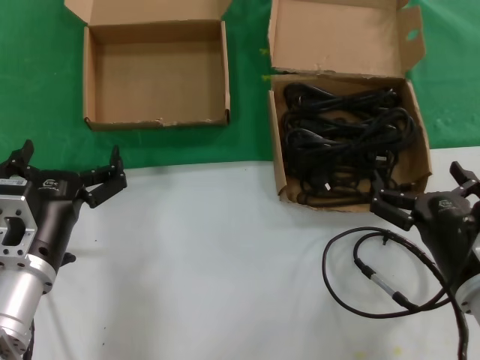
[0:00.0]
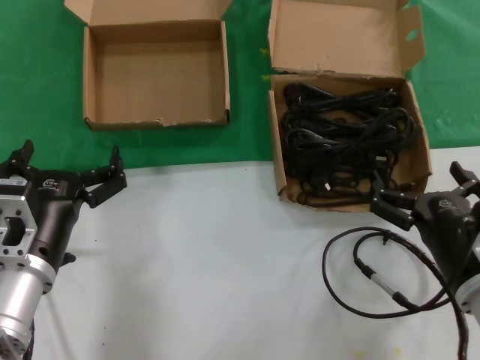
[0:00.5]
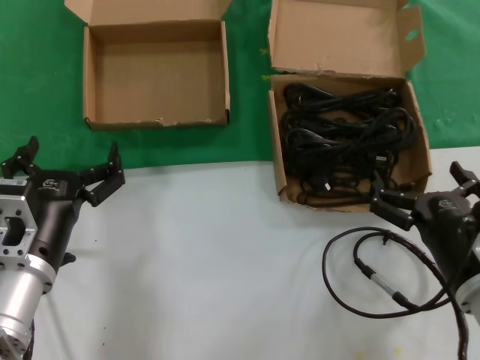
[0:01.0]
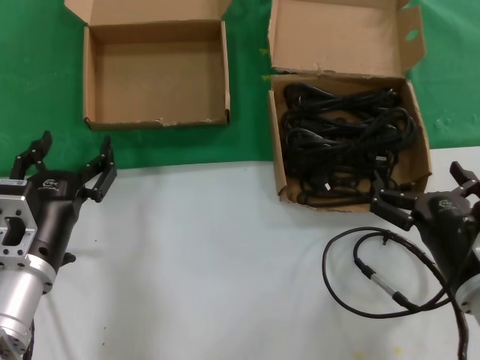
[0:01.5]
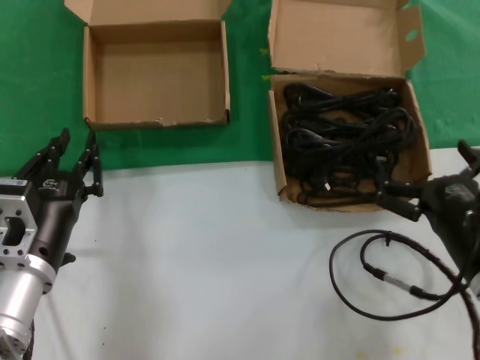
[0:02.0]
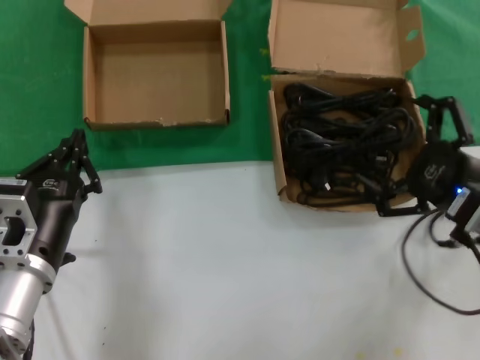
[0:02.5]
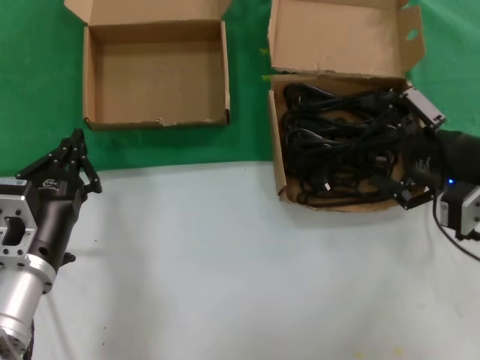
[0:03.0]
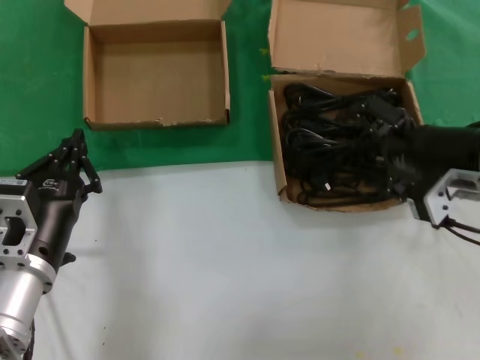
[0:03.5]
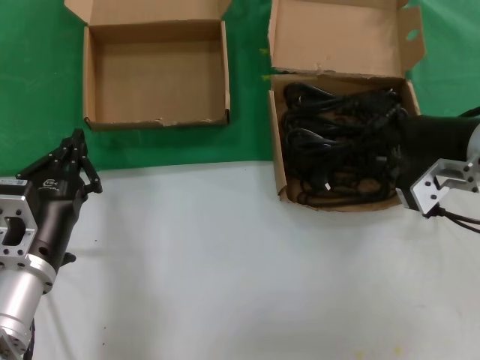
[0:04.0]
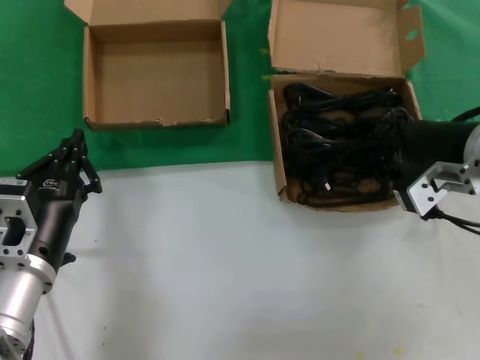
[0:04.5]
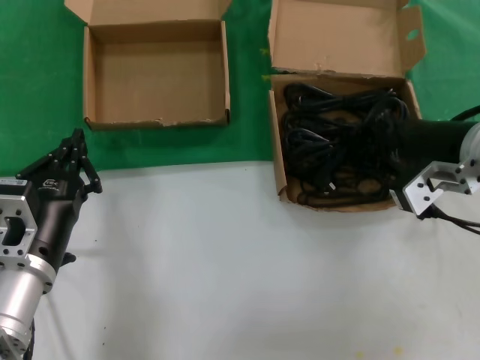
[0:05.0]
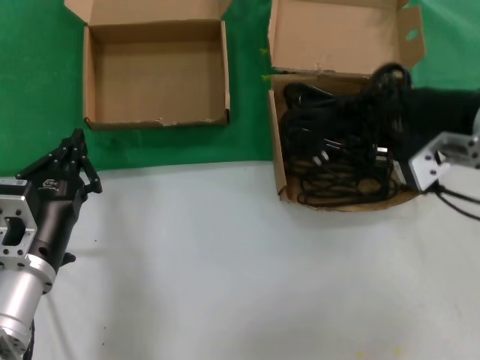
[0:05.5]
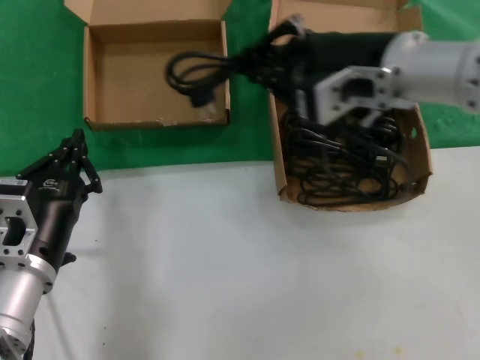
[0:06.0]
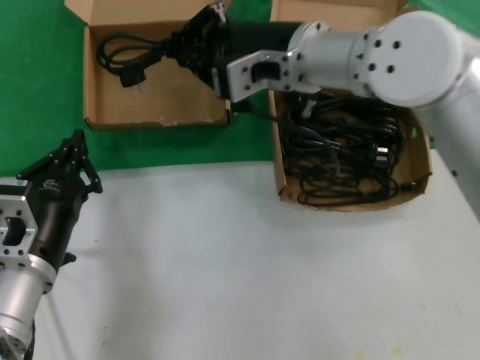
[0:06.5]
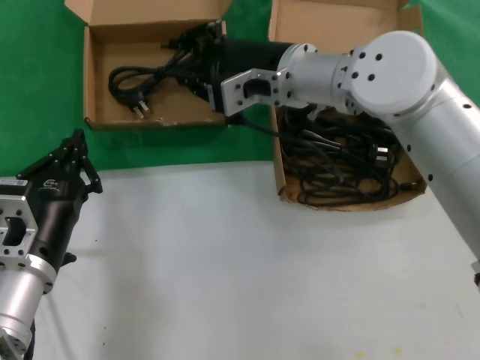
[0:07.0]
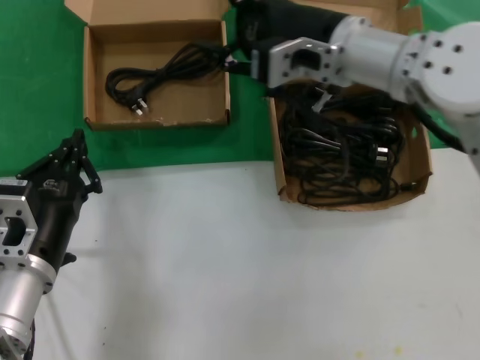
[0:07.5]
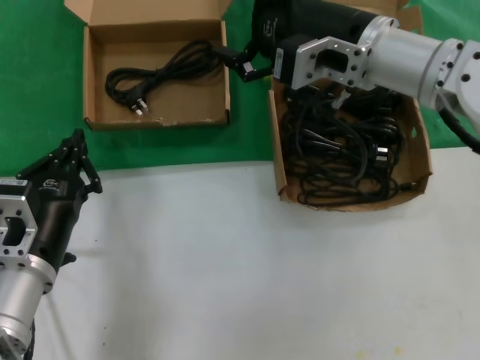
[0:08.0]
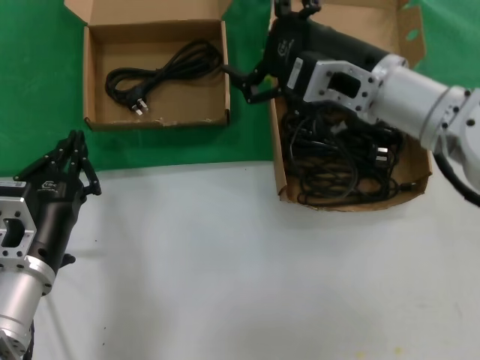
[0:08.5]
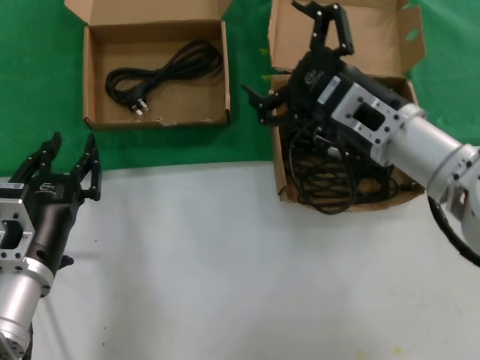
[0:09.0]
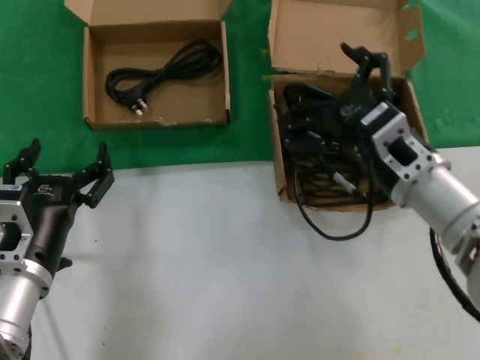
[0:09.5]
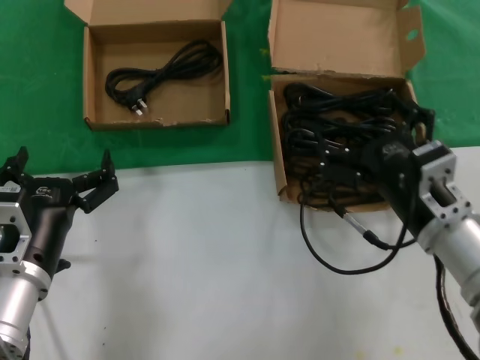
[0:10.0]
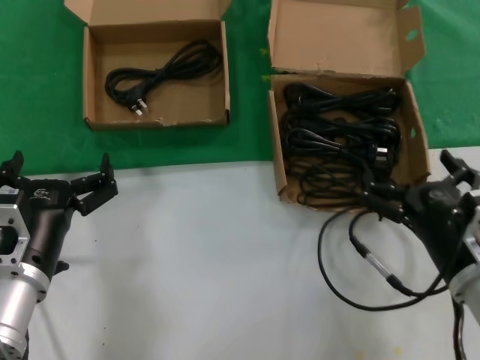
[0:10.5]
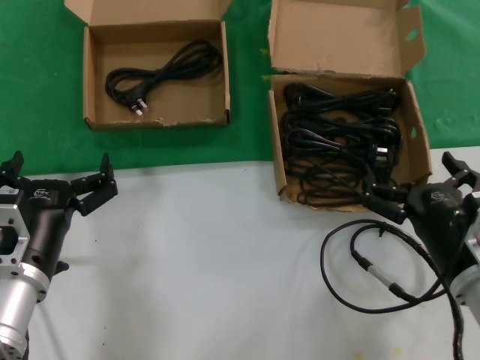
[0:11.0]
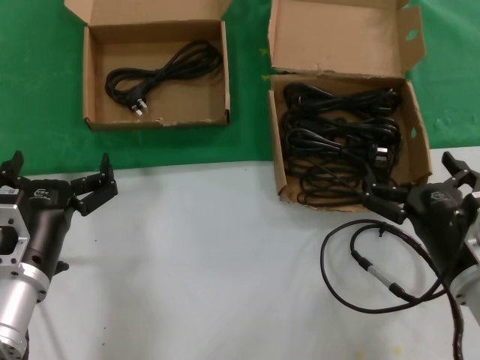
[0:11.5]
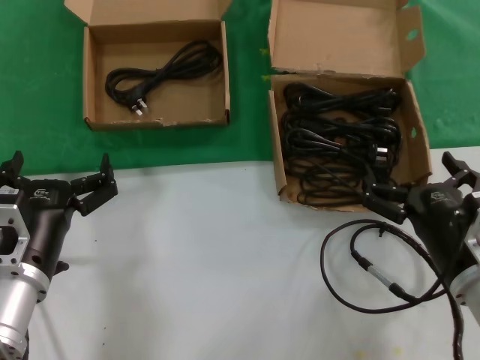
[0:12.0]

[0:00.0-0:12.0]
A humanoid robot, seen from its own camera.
Task of the whole recording: take the parts from the box containing them and put them into an empty box.
Step, 0:00.0 to 0:05.0: Grasp the data cable.
Step, 0:05.5 to 0:06.5: Place the data cable in the another box.
0:00.0 to 0:02.0: The hands make only small movements.
0:02.0 to 0:04.0: The right hand heads upward and forward, covering about 20 cm.
0:04.0 to 0:06.0: The right hand is displaced to the left and upward by some 15 cm.
0:06.0 to 0:08.0: The right hand goes to the left and returns, some 10 cm each way.
0:08.0 to 0:10.0: The right hand travels downward and backward by roughly 20 cm.
0:10.0 to 0:12.0: The right hand shifts by about 5 cm.

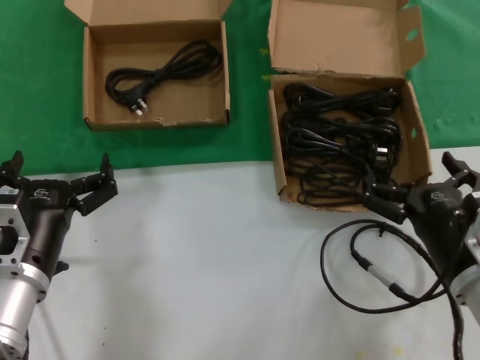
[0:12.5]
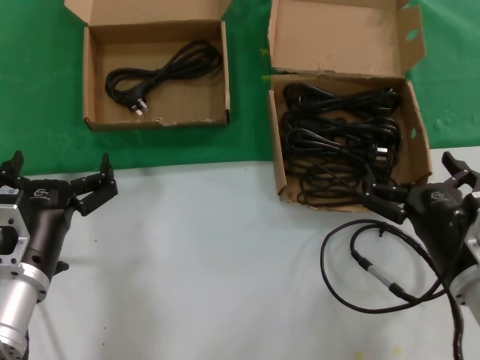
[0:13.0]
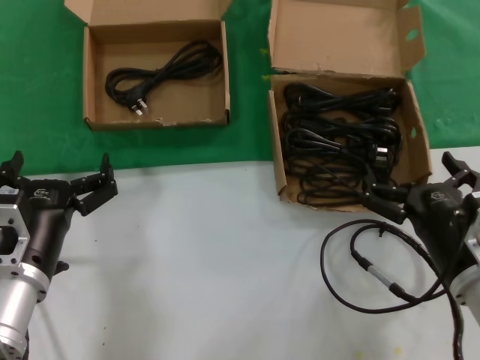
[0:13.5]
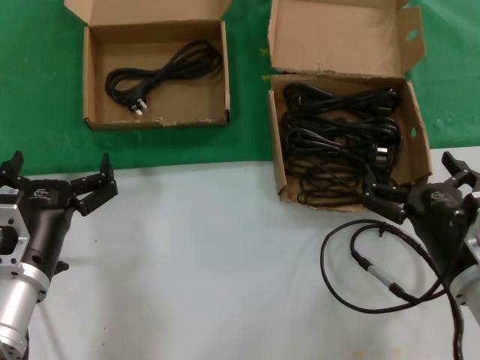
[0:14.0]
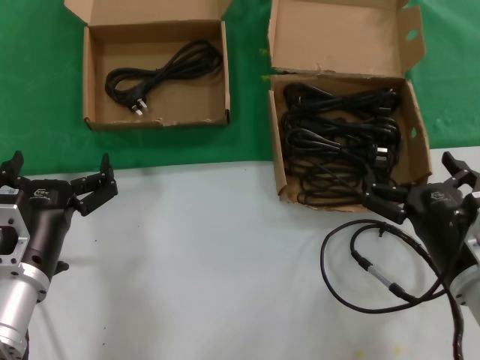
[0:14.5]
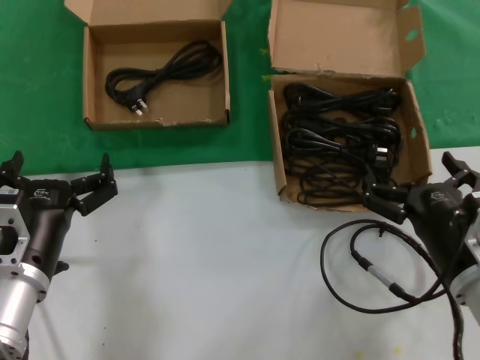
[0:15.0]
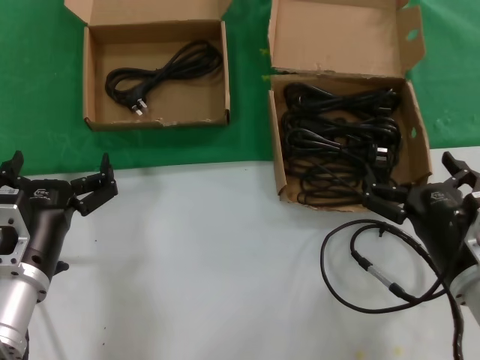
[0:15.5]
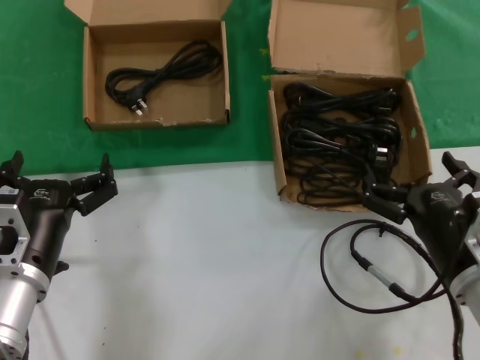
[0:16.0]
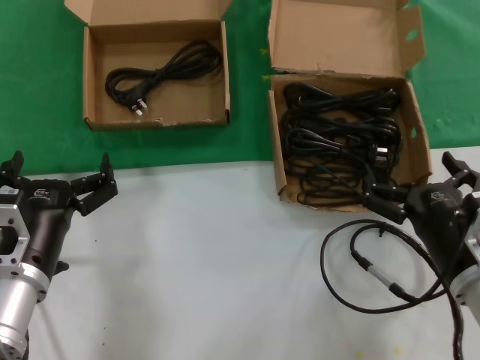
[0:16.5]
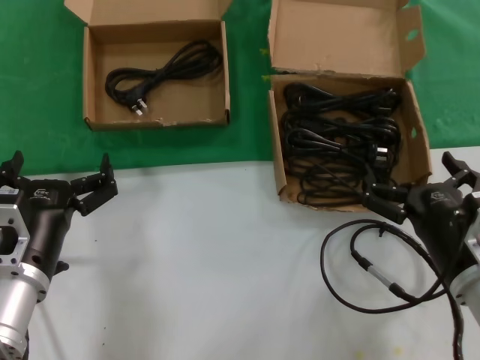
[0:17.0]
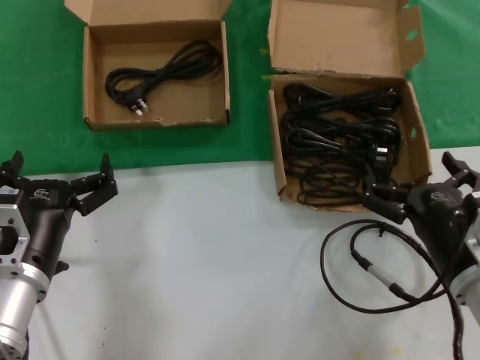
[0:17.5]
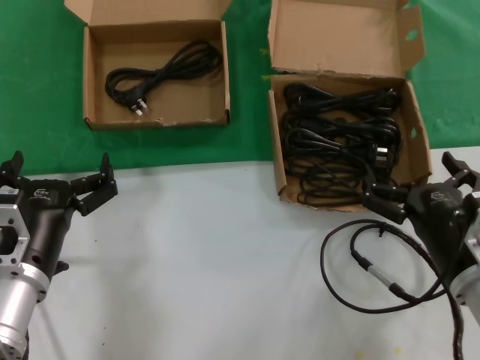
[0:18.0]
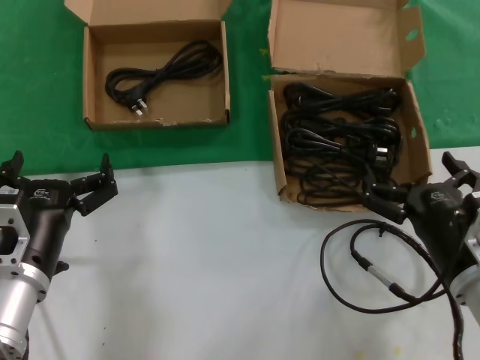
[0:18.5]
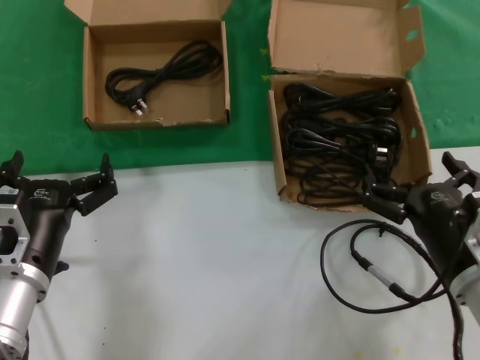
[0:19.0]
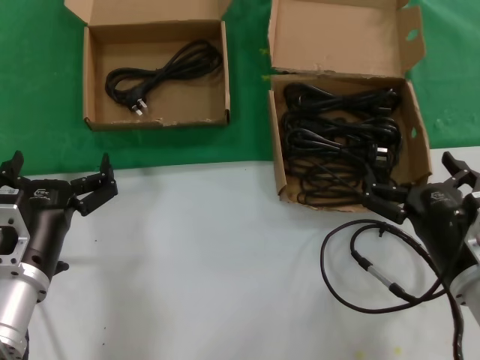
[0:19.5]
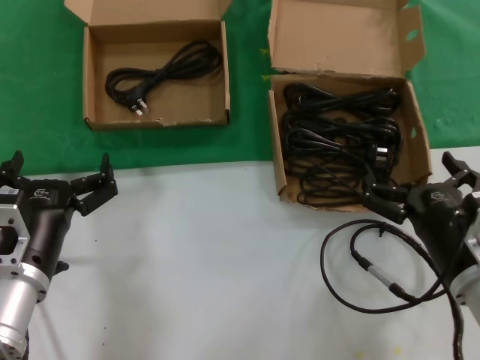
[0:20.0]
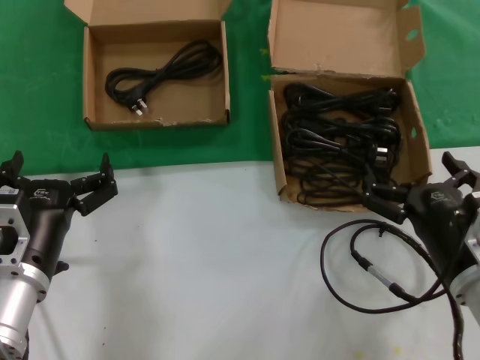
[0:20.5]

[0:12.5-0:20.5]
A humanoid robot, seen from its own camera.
Task of the whole recording: take the parts from the box containing them and put them into an empty box.
0:12.5 to 0:20.5: Both hands stay put.

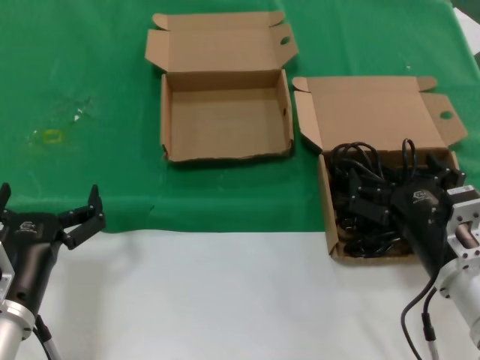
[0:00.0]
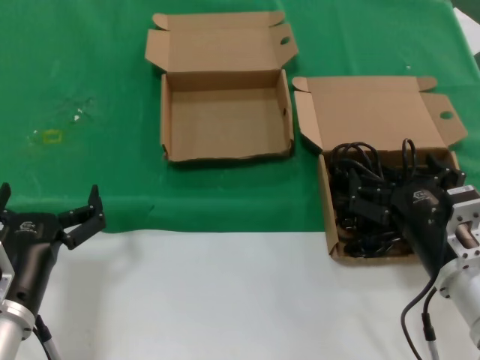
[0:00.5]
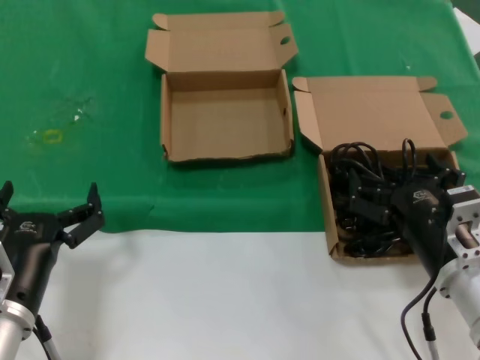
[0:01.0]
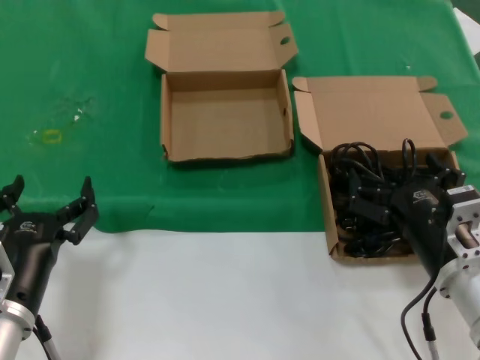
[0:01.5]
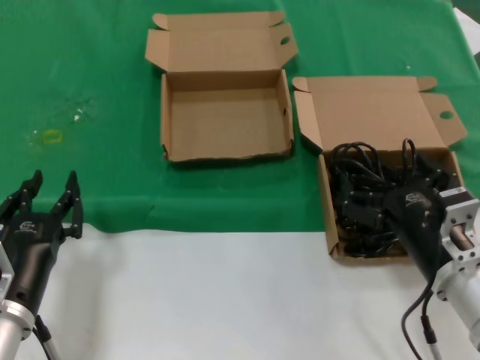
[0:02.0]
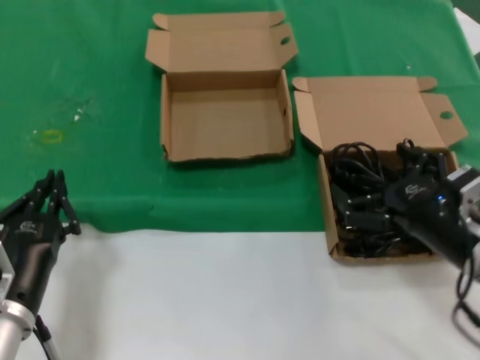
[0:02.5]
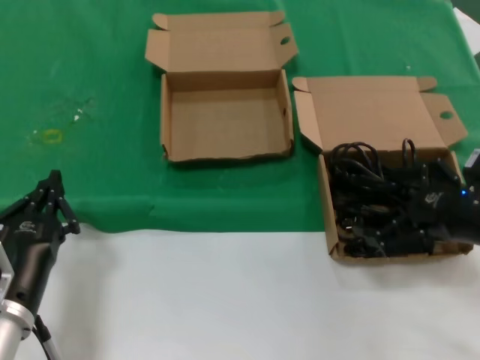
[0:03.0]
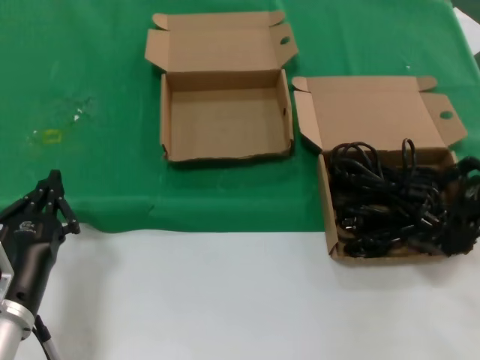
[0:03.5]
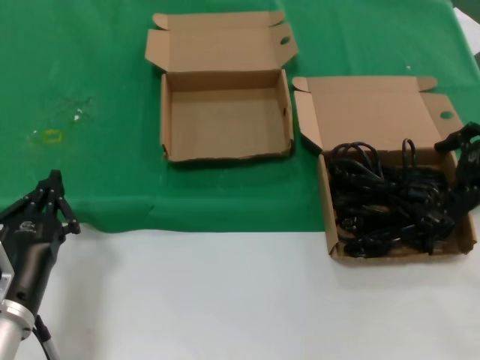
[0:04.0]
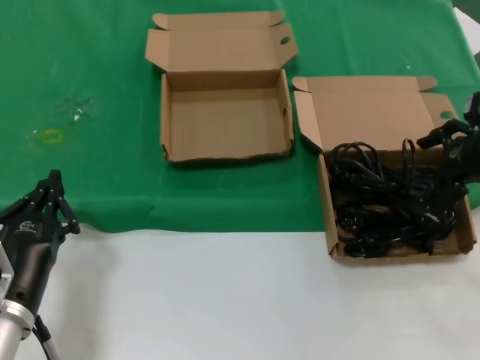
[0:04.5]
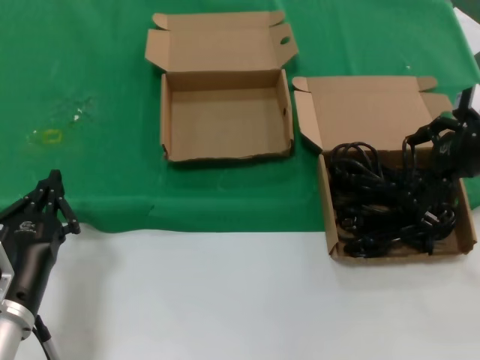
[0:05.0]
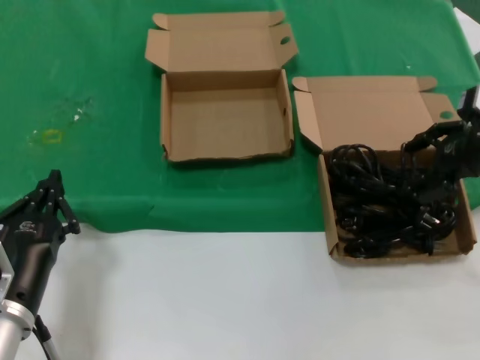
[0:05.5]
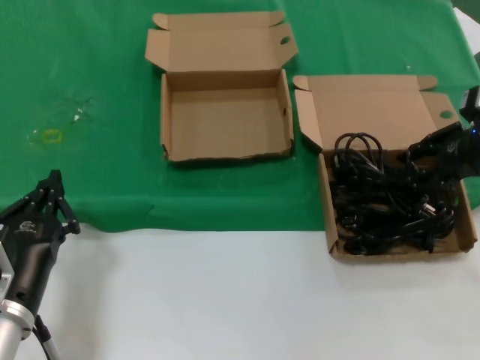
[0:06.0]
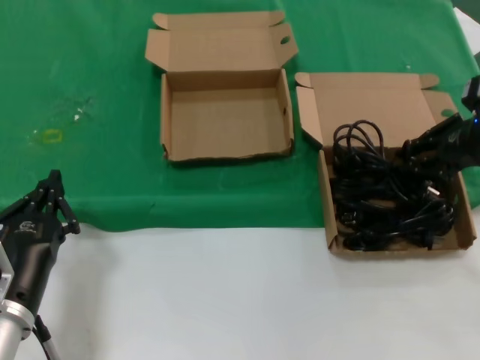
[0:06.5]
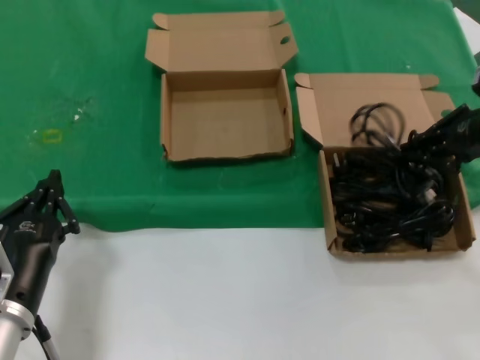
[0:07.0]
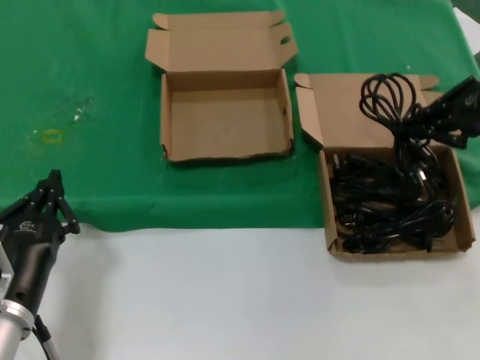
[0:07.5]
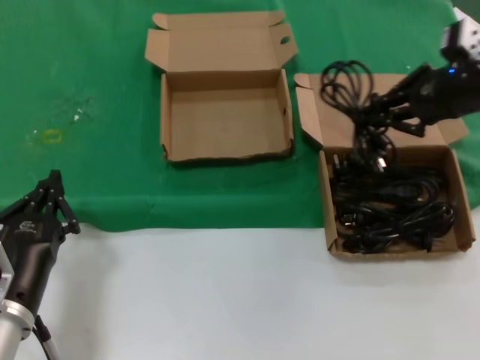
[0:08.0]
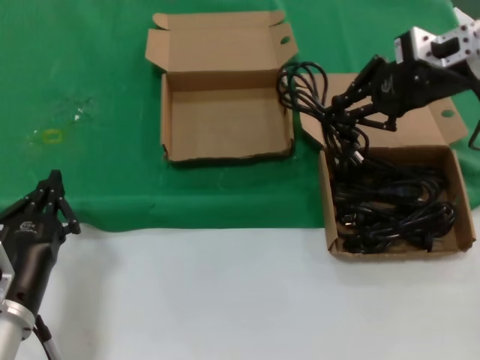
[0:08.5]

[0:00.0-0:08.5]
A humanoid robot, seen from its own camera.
Task of the whole recording: take the parts from the box containing them and put them into an empty box.
Step, 0:00.0 to 0:06.0: Grasp the data cable.
0:00.0 to 0:02.0: Neither hand changes place.
0:02.0 to 0:04.0: The right hand heads upward, to the right and forward, covering approximately 30 cm.
0:04.0 to 0:06.5: The hands make only small movements.
0:06.5 to 0:08.5: The right hand travels to the left, upward and forward by some 10 cm.
